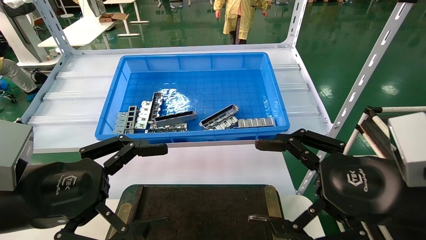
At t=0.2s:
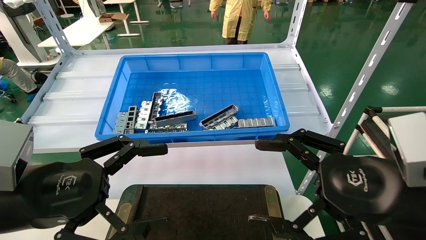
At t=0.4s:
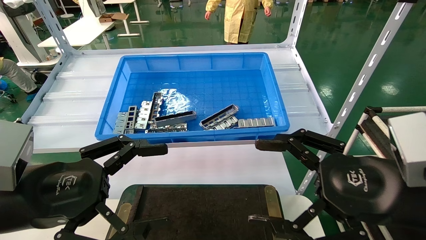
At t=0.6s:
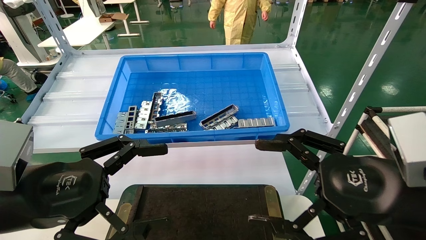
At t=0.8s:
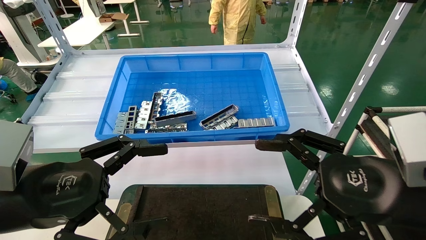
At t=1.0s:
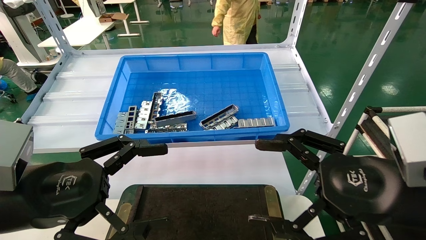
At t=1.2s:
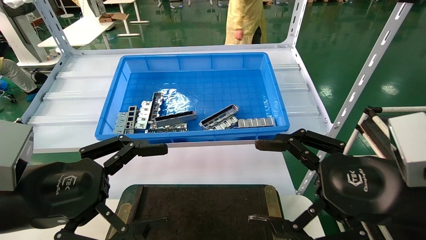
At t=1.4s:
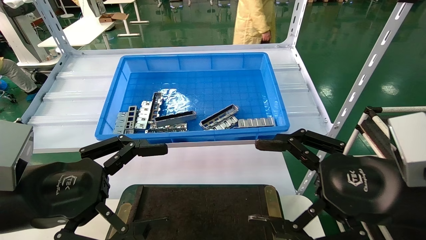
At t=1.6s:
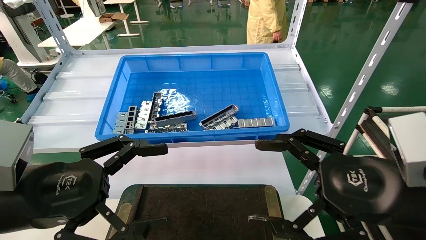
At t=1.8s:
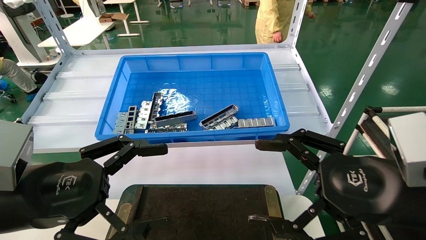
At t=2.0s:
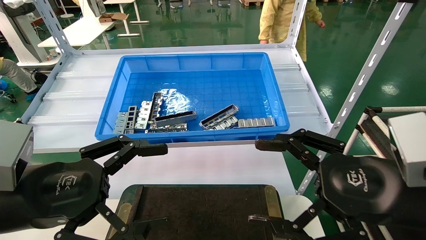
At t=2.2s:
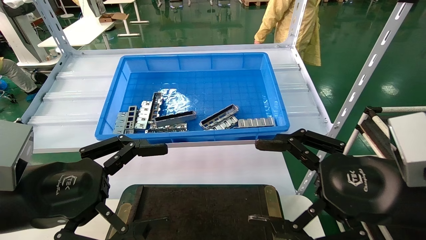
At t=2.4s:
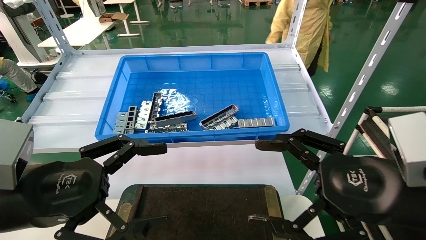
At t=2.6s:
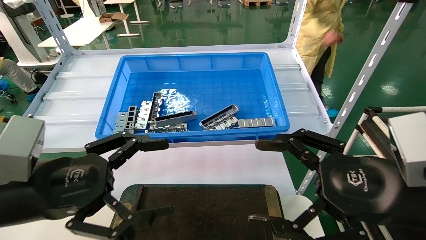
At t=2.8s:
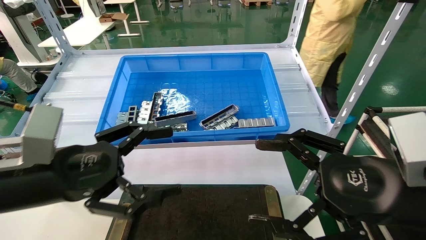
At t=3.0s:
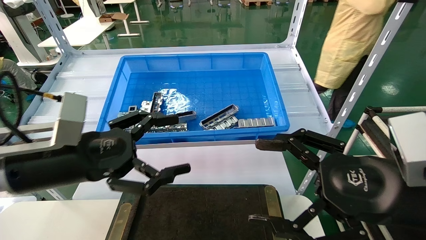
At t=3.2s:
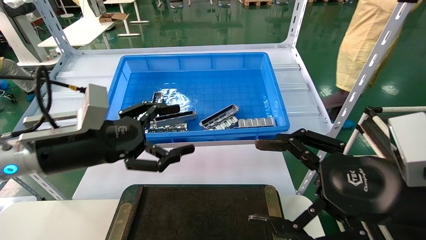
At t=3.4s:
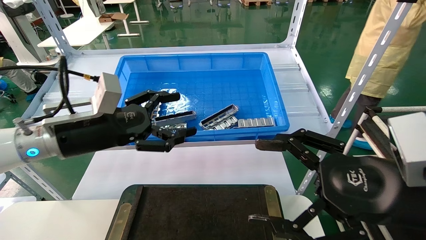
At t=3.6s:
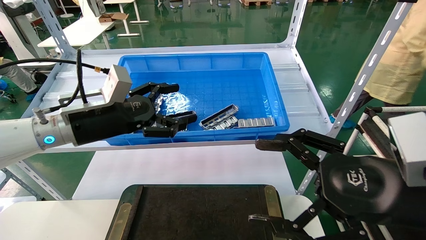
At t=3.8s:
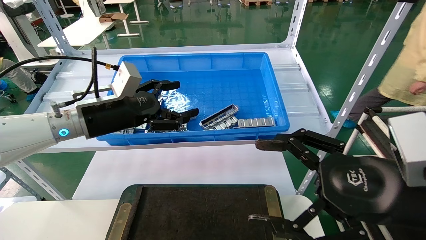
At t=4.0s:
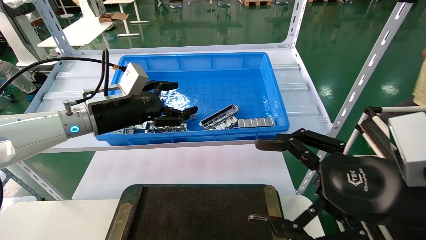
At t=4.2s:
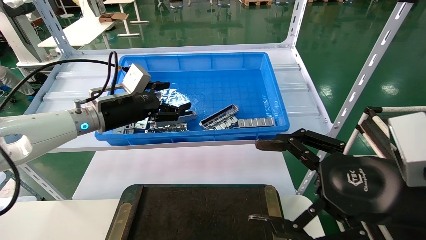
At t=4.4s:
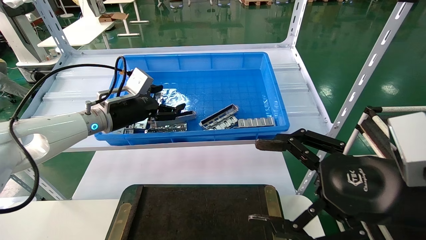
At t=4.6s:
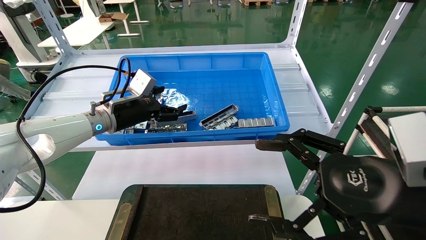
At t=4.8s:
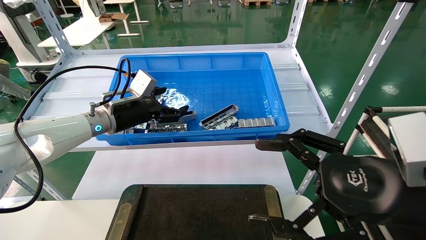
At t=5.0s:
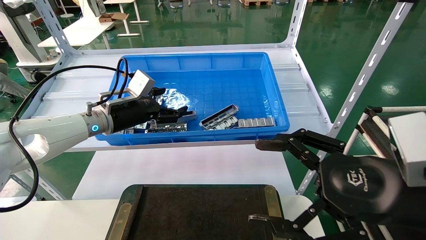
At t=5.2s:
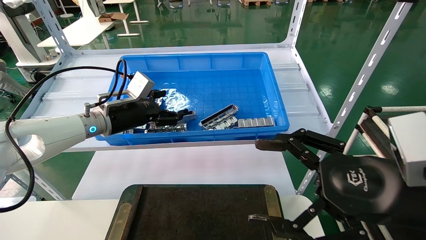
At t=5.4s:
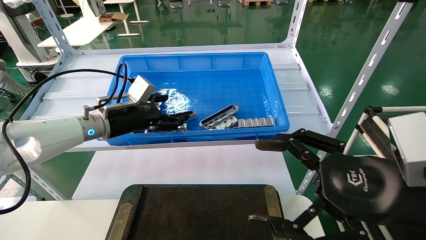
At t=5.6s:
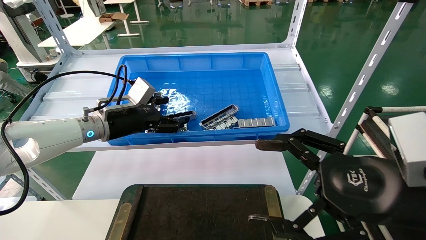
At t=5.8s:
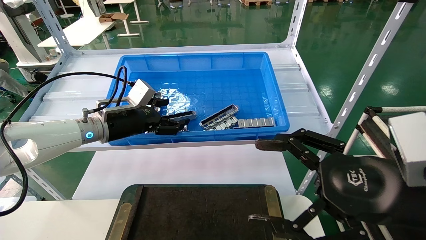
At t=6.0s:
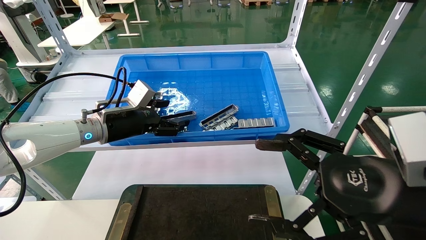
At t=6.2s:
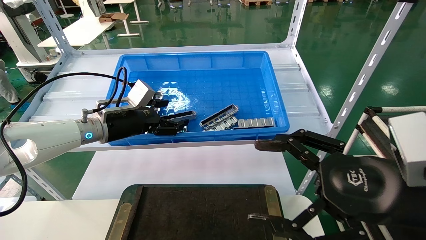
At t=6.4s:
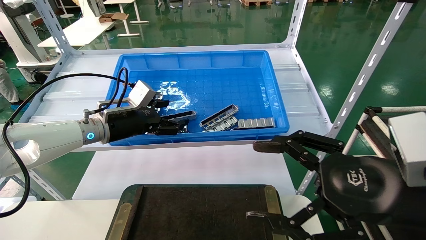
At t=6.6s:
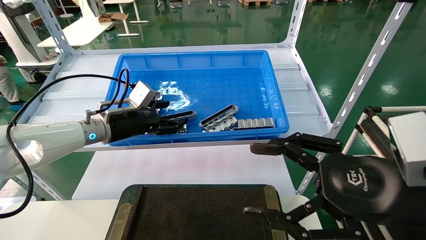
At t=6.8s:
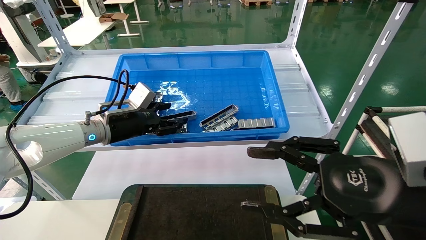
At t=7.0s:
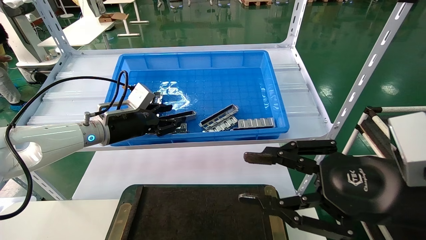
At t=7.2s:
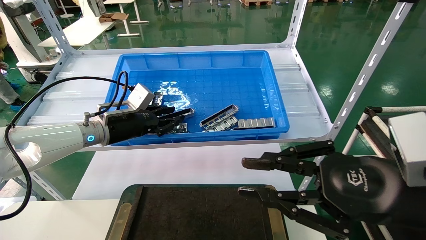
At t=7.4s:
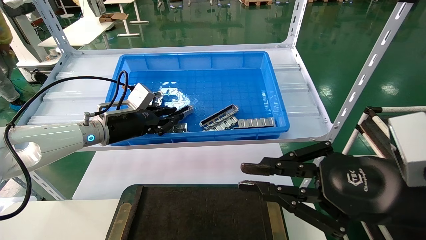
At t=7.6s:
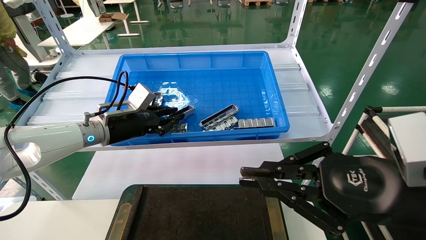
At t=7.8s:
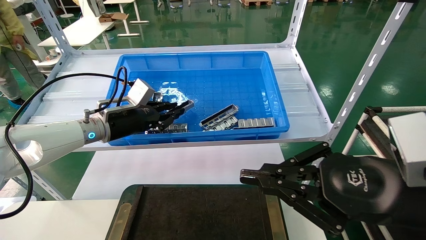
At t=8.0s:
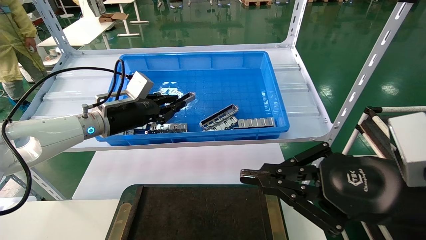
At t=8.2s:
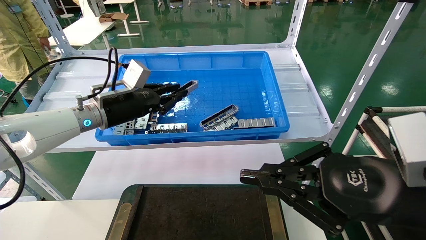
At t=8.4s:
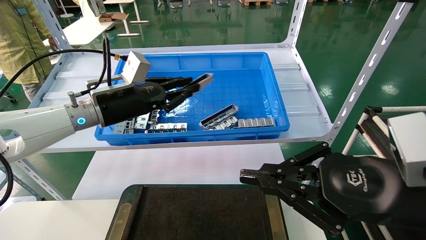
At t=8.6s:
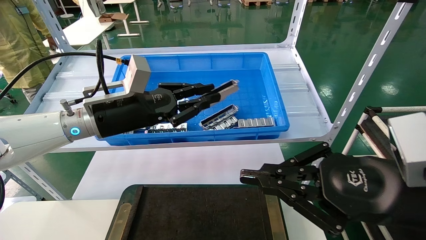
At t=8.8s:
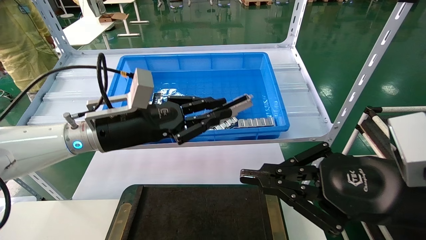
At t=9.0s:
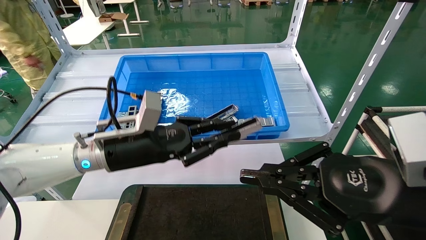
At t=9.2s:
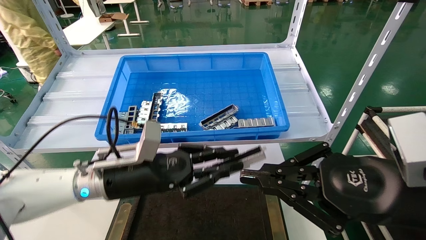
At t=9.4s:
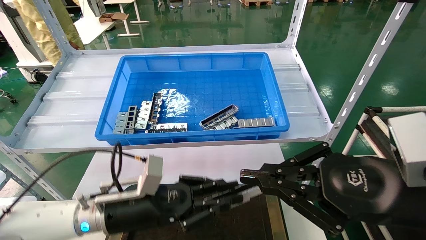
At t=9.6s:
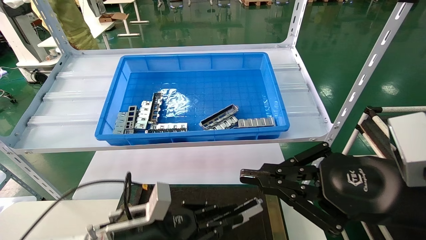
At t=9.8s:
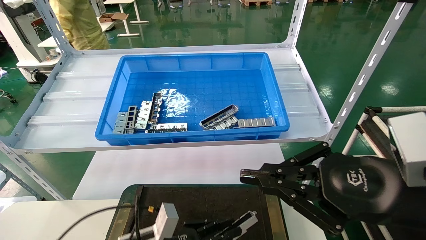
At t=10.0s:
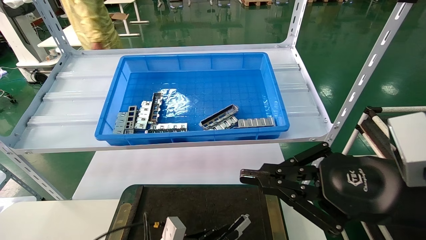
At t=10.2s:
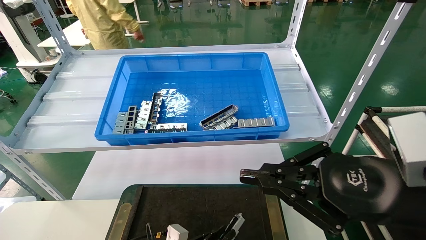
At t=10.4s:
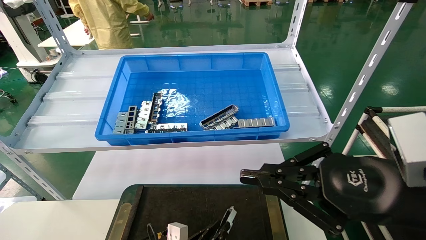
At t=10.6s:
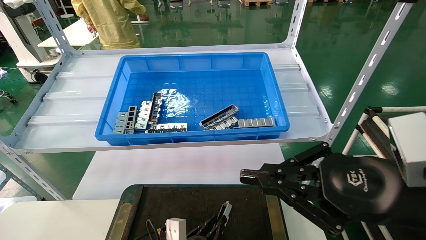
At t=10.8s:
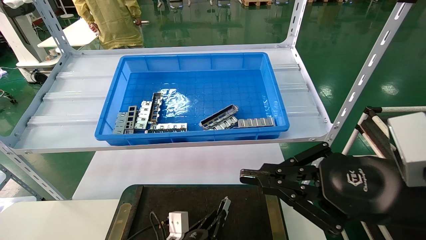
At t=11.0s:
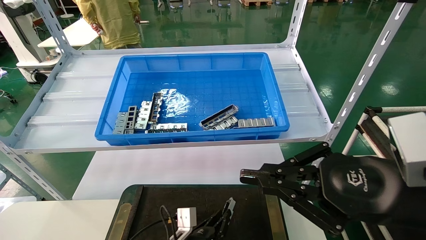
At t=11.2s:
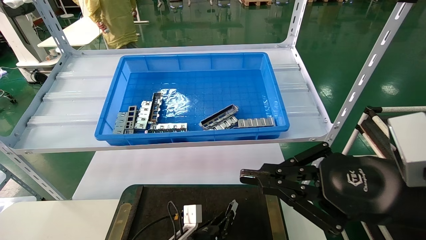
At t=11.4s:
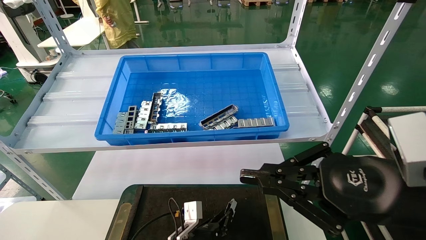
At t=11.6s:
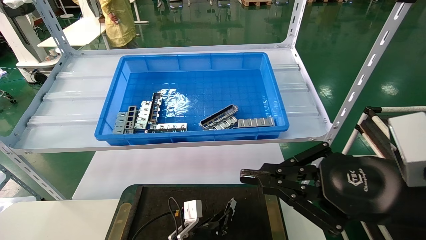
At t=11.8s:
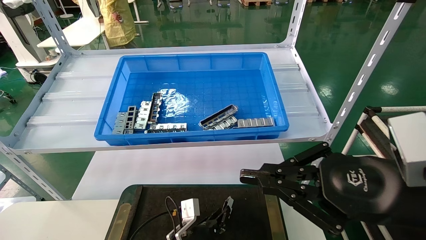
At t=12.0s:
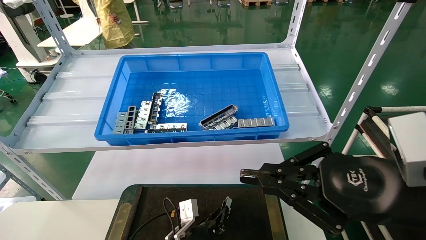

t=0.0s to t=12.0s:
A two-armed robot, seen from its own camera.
Task of the whole recording: Grasp the part with one hand and place it on the black container.
Step, t=2.8s to t=7.4s: Pick up the front USB bracket from the feeding area.
t=0.0s to t=1.6s: Neither gripper changes place.
t=1.6s to t=3.0s: The left gripper heads forward, covering approximately 5 cm.
t=3.0s to t=4.4s: The left gripper goes approximately 20 cm forward.
t=4.4s to t=6.0s: The grippers make only small movements.
t=6.0s to t=7.6s: The right gripper closes its fingers. The left gripper closes up.
t=7.6s to t=9.0s: The left gripper is displaced backward and to the right by some 10 cm.
t=9.0s to t=10.4s: The left gripper shifts some 30 cm downward.
t=10.4s to t=12.0s: The left gripper goes about 5 cm forward.

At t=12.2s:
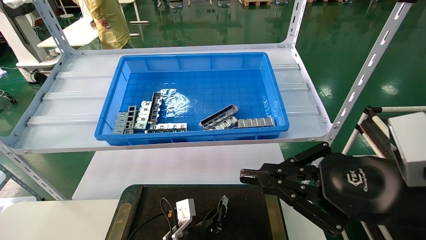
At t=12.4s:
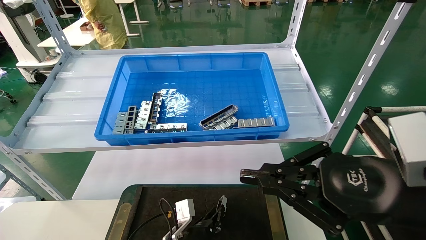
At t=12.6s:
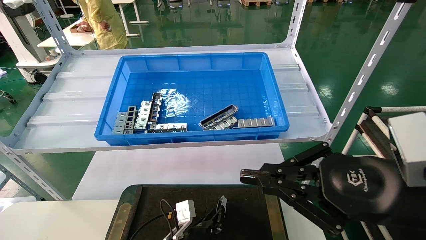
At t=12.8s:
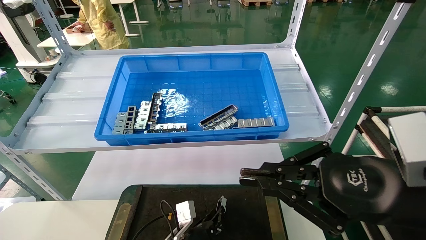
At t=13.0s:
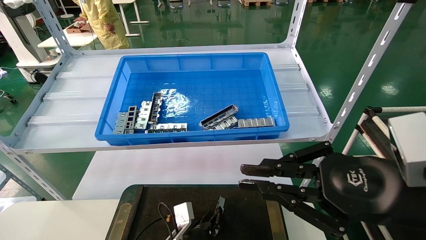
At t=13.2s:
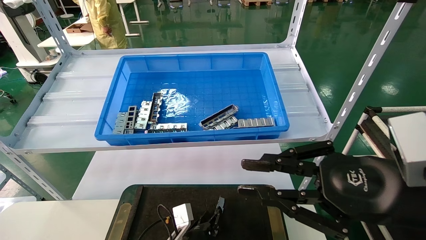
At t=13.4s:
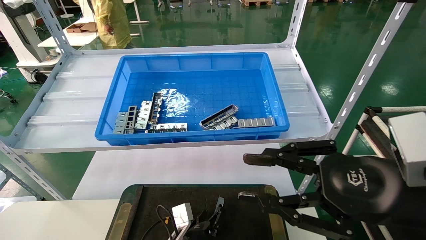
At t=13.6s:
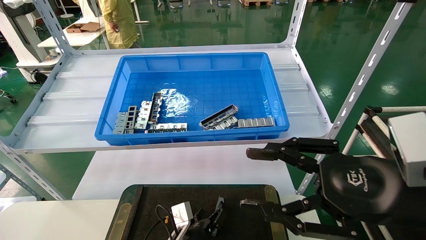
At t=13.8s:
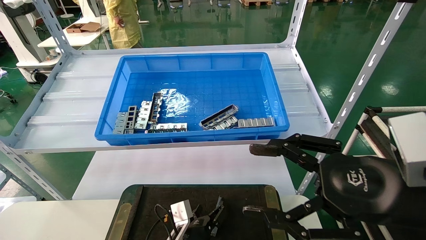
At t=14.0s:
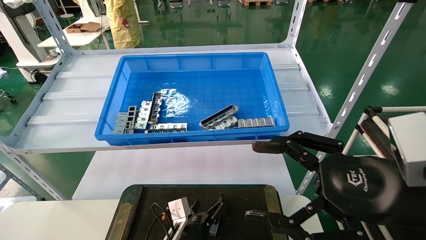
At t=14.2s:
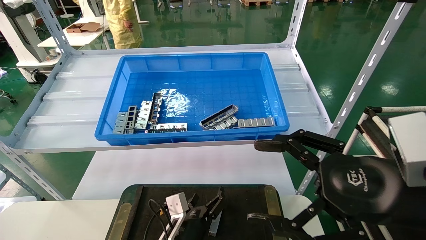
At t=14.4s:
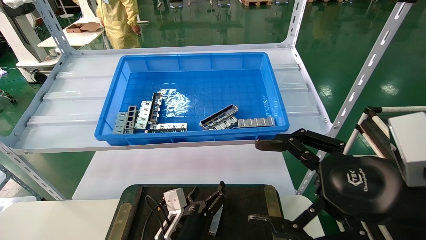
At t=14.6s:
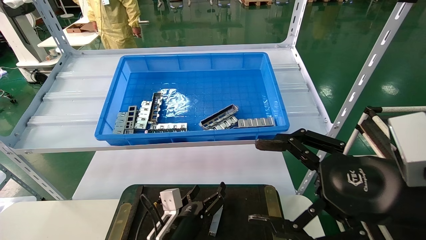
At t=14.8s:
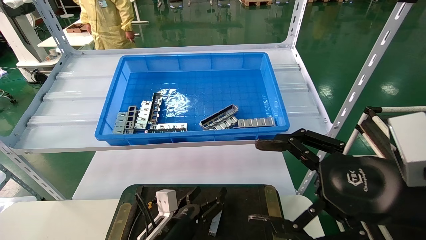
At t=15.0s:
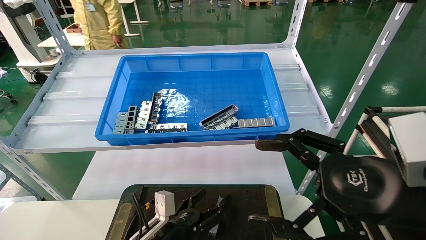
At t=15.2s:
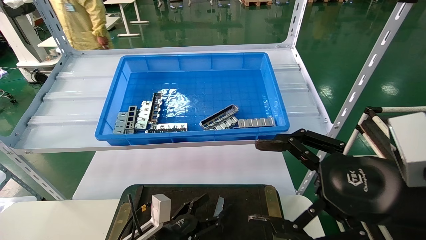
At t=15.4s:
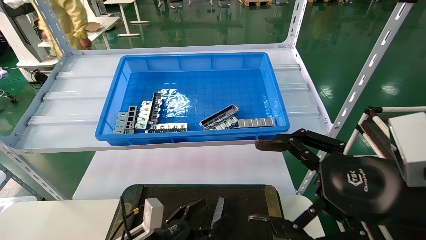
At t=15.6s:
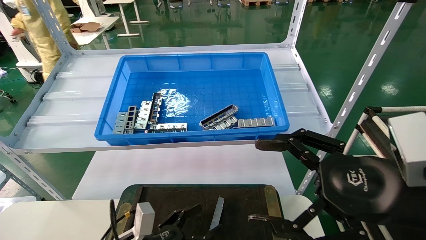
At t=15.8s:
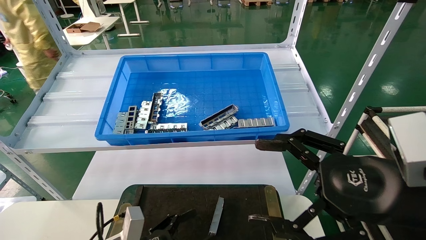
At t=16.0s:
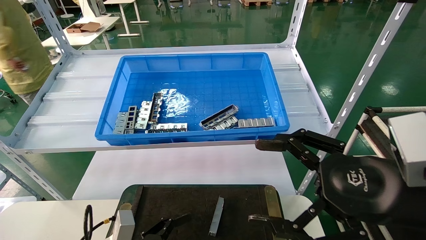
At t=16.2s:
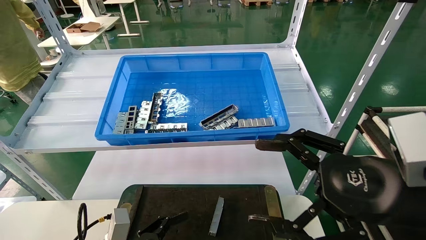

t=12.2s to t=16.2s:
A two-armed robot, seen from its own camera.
Task of the whole recording: Grasp the part with one hand and place it on the black container.
t=12.2s to t=13.6s: The left gripper opens its fingers, while the right gripper opens.
t=13.6s to t=14.8s: The right gripper opens its fingers. Meanwhile the left gripper moves upward and to the left, about 5 cm, and opens up.
t=14.8s to t=16.2s: The left gripper travels to the left and backward by approximately 15 cm.
